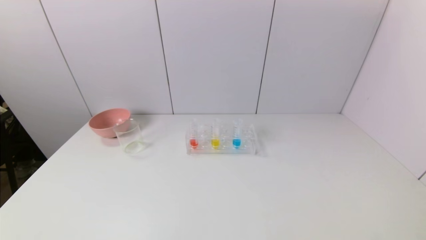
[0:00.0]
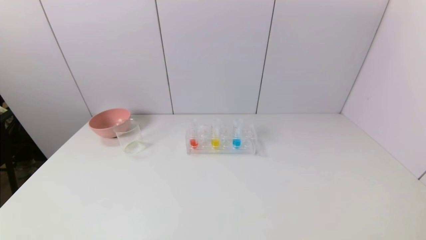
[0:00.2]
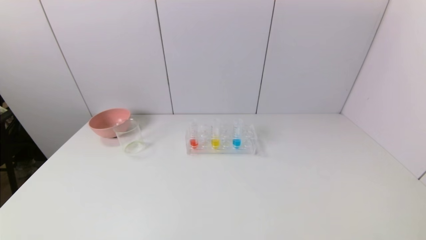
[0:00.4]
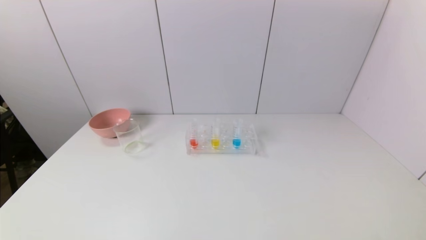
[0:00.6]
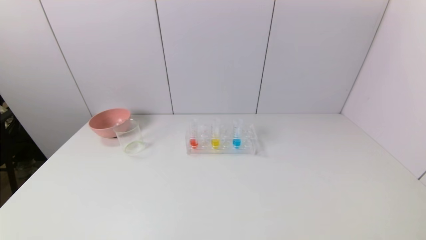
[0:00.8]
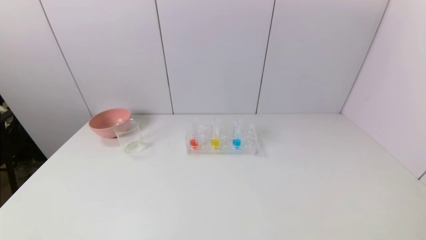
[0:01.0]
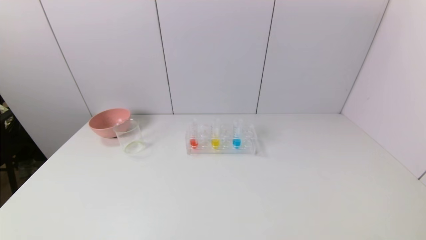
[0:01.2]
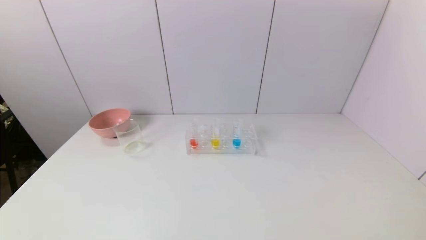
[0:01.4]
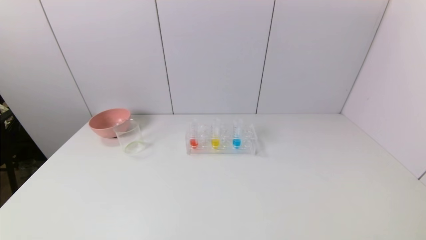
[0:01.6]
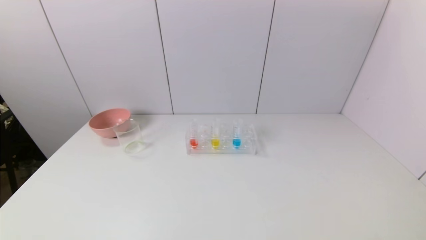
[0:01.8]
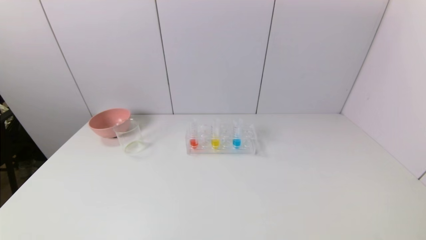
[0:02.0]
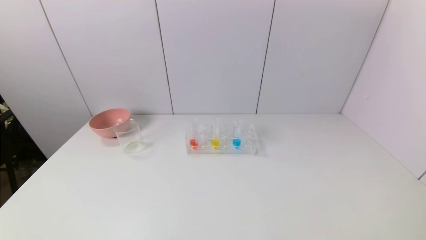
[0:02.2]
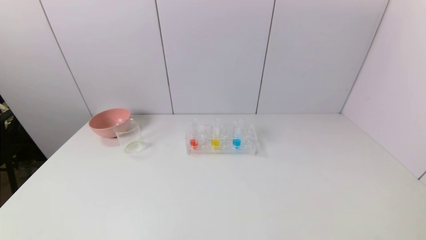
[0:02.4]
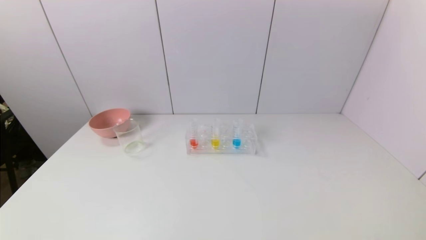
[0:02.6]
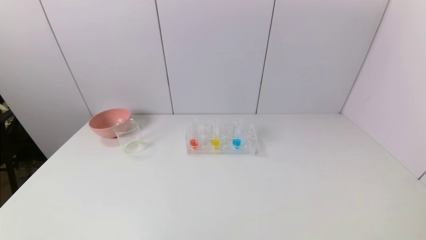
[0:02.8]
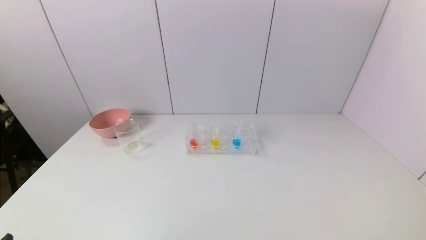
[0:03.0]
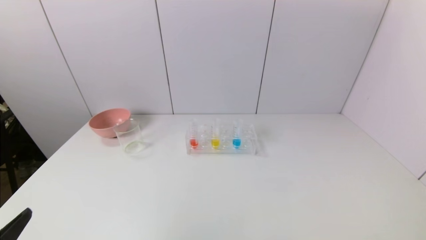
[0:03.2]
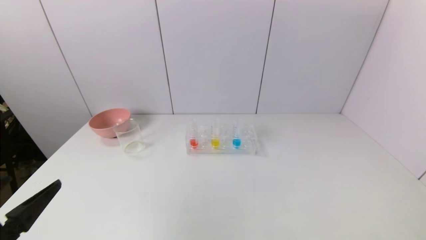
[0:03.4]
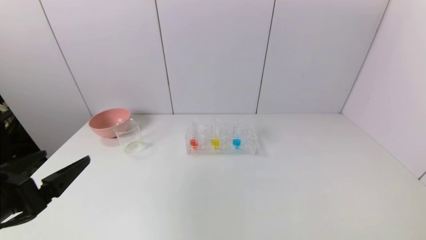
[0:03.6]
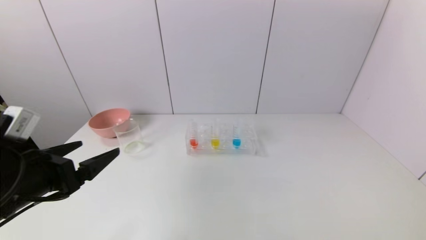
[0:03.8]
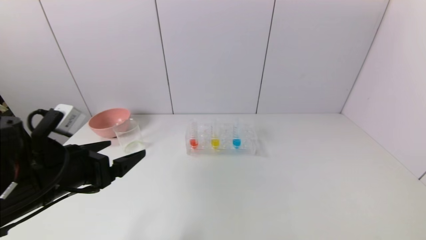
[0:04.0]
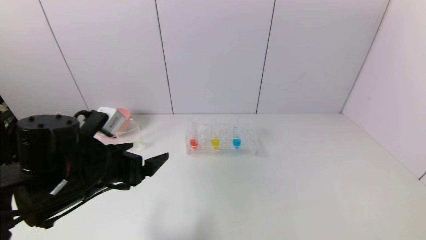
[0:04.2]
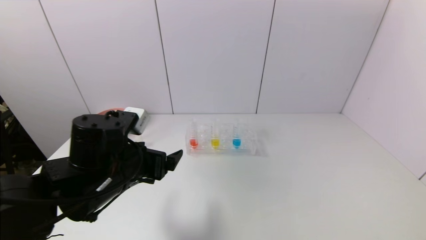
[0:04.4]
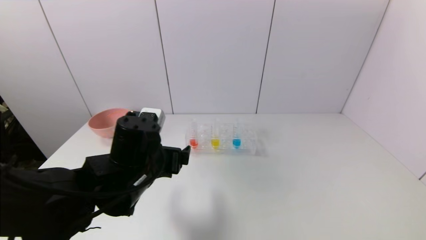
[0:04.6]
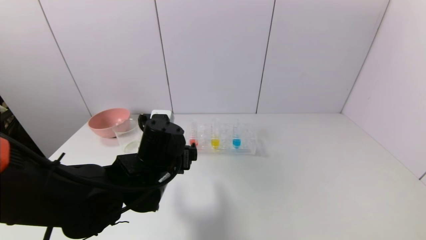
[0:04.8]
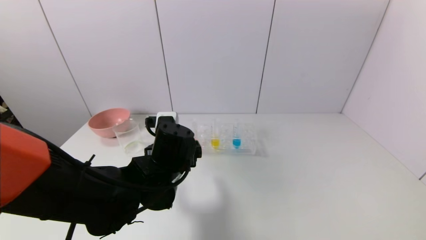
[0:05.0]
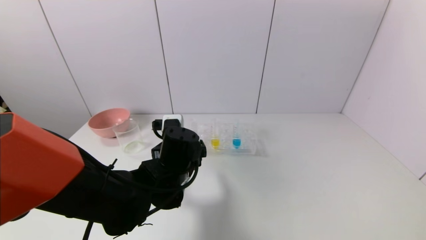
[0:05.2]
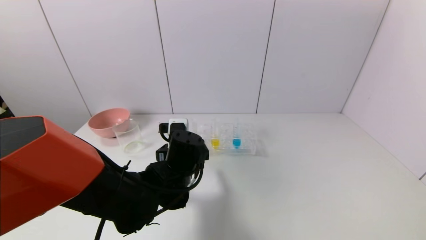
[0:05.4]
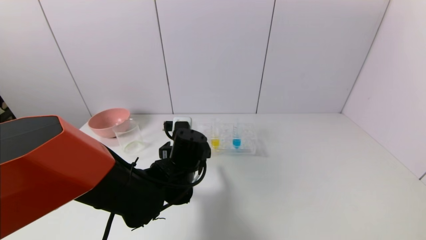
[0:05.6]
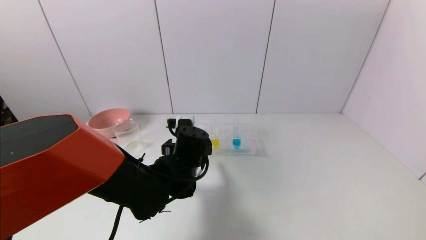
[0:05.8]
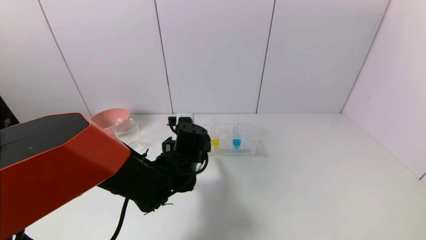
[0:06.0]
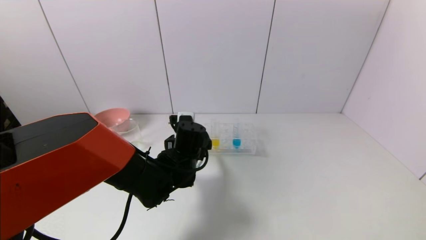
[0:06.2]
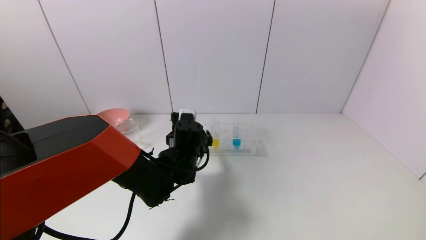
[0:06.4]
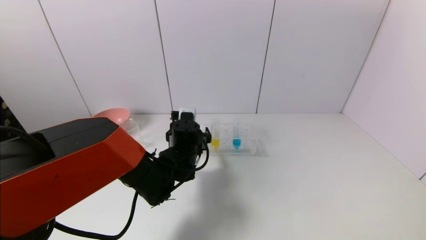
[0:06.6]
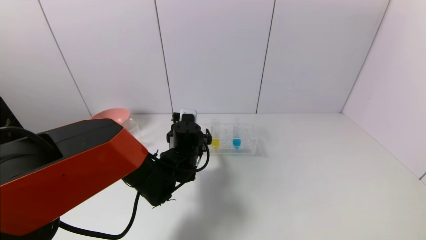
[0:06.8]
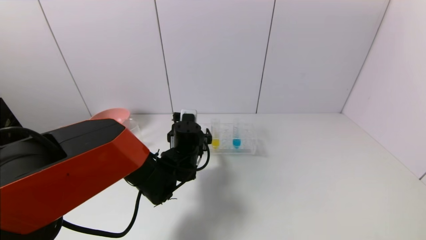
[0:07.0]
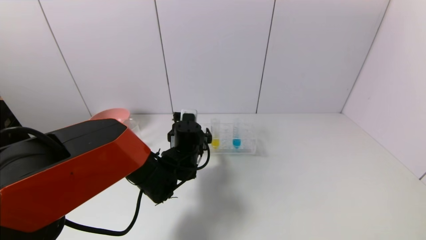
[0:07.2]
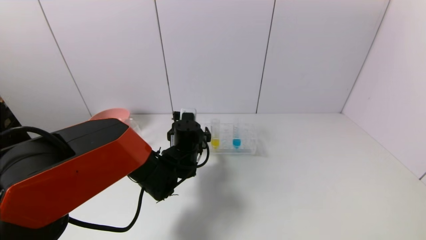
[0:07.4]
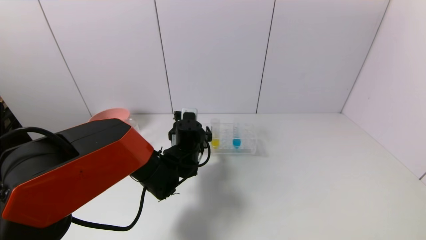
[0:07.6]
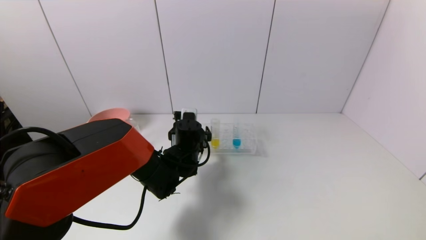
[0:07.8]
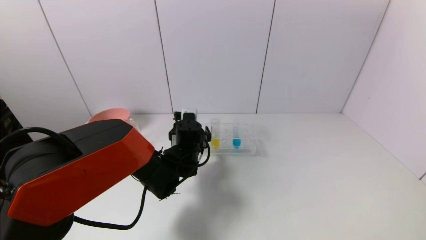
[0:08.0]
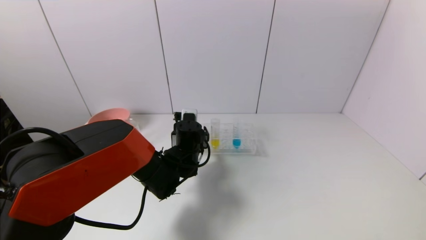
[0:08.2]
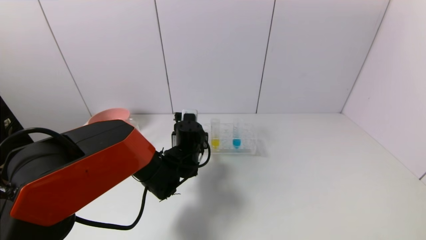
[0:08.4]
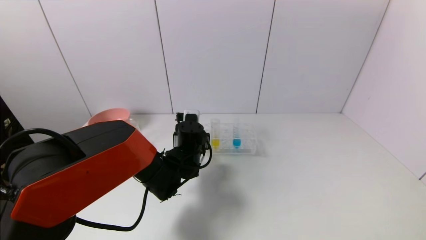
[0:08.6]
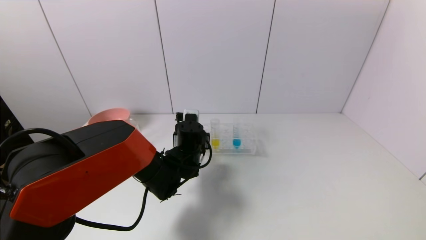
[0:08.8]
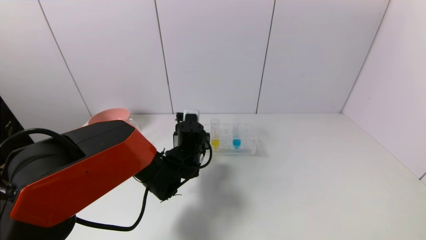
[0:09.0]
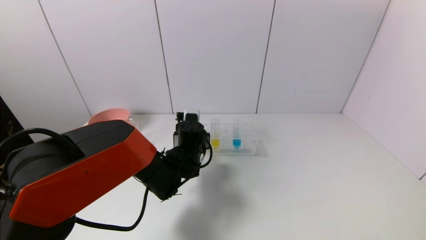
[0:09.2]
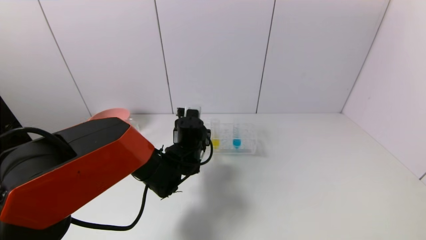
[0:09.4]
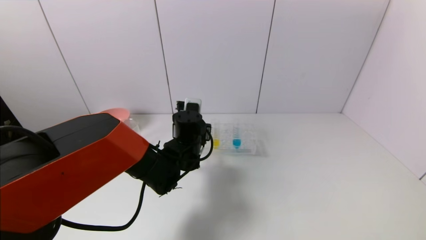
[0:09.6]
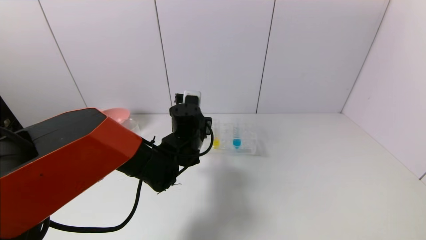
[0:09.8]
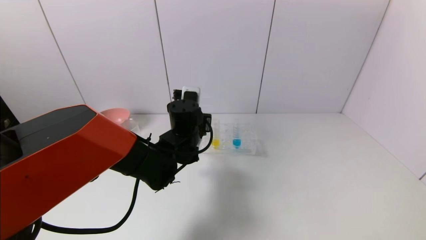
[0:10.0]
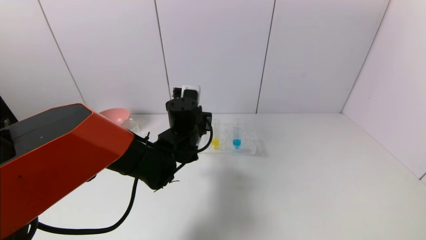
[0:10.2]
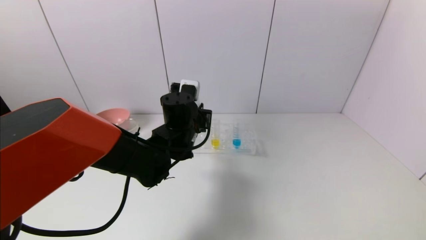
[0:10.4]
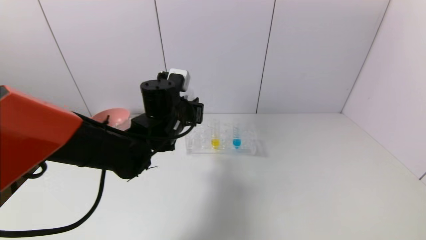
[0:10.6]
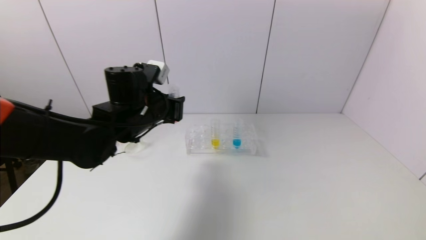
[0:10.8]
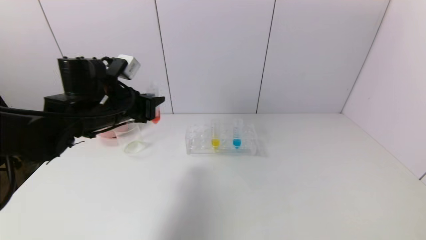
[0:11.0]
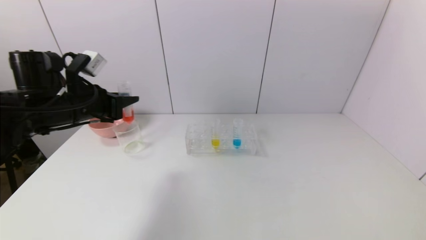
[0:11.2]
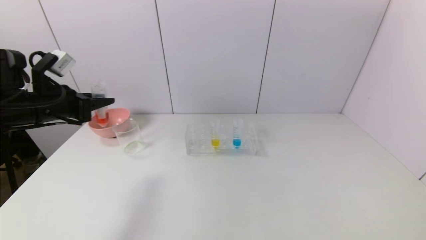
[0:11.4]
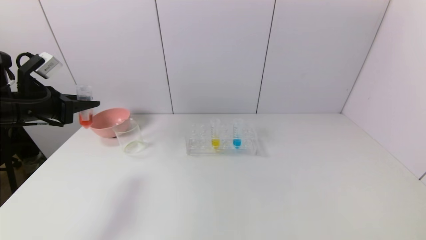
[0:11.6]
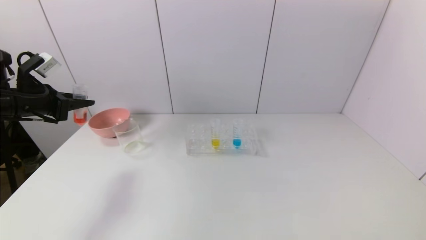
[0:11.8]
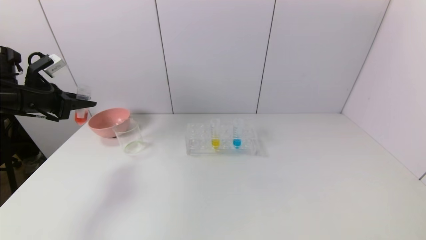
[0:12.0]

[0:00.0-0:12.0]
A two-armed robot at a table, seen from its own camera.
Task of the whole recording: pick up the test tube with yellow pigment and the test tube with red pigment by grippers and pour them into the beaker.
Step, 0:00.0 to 0:08.8: Grasp the red reagent with the left gripper.
0:03.0 to 0:04.4: The left gripper heads forward and to the right, covering roughly 25 cm.
0:04.4 to 0:06.0: The left gripper goes some 15 cm to the right, forward and downward.
0:06.0 to 0:07.6: The left gripper goes roughly 5 cm forward.
0:07.6 to 0:09.0: The left gripper closes.
0:09.0 to 0:10.4: The left gripper moves upward, approximately 10 cm.
0:10.4 to 0:12.0: The left gripper heads to the left, covering approximately 35 cm.

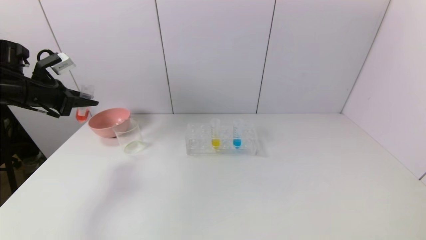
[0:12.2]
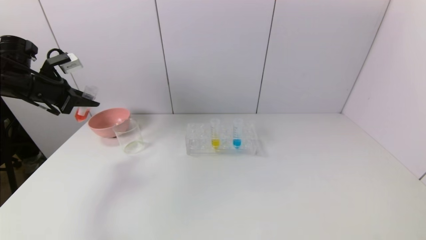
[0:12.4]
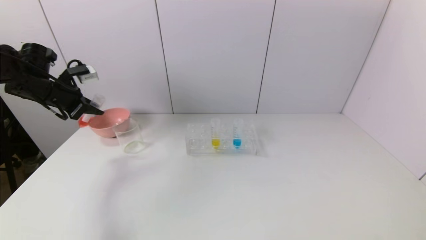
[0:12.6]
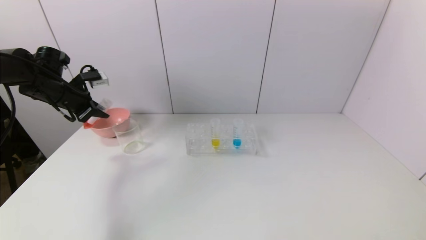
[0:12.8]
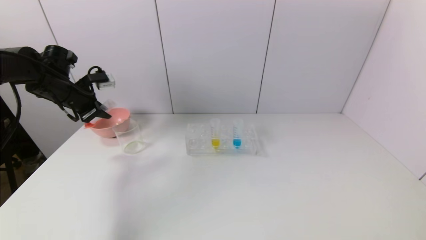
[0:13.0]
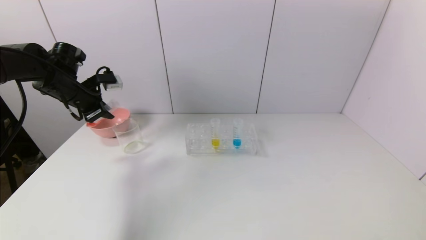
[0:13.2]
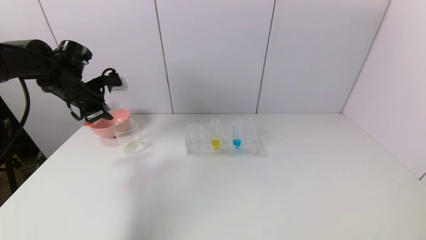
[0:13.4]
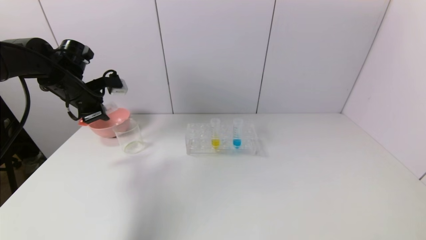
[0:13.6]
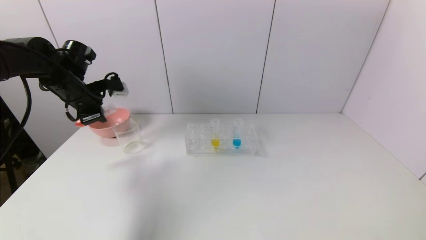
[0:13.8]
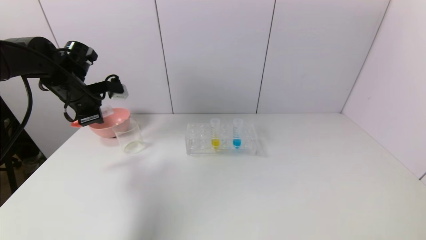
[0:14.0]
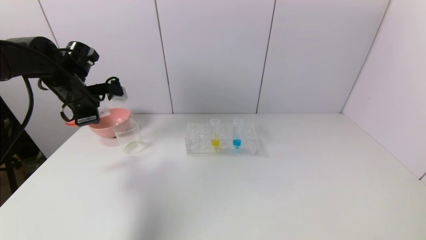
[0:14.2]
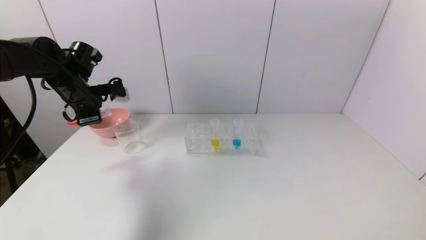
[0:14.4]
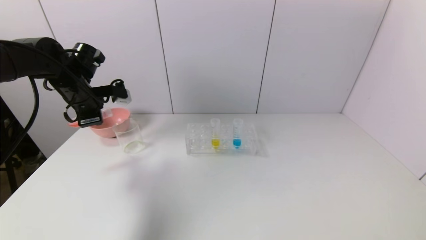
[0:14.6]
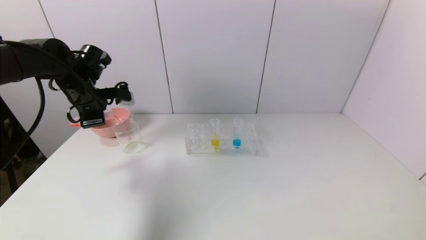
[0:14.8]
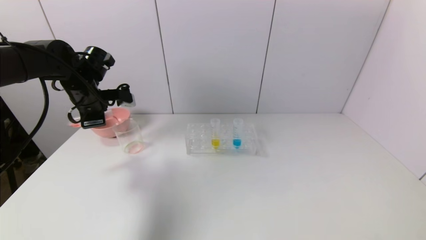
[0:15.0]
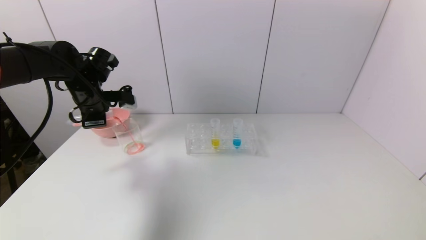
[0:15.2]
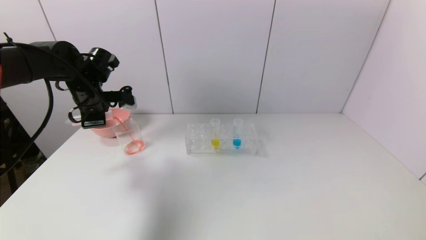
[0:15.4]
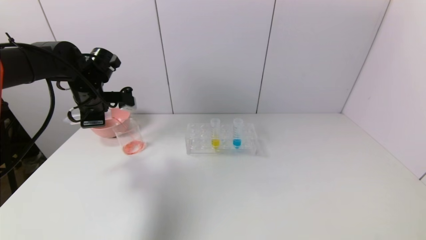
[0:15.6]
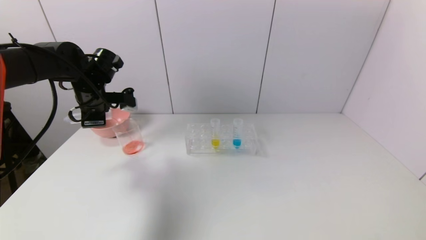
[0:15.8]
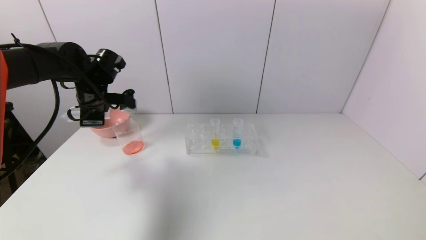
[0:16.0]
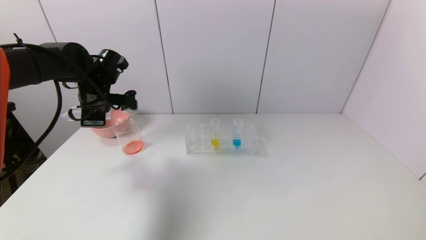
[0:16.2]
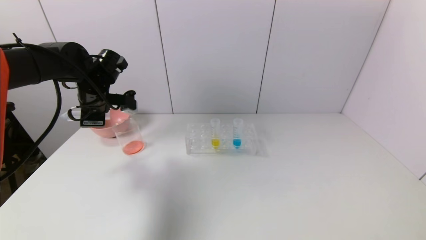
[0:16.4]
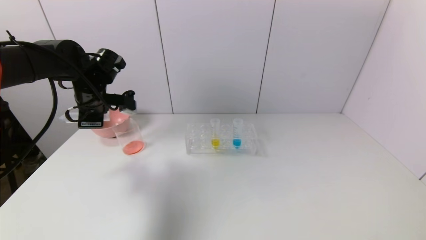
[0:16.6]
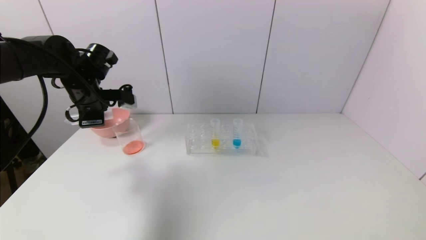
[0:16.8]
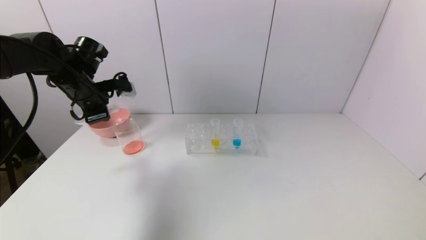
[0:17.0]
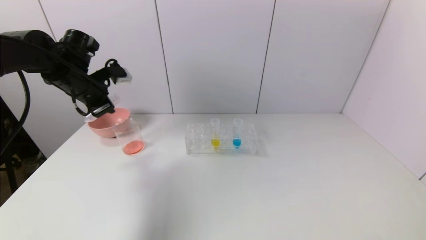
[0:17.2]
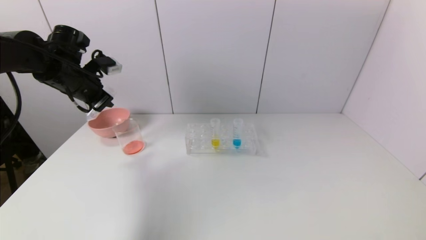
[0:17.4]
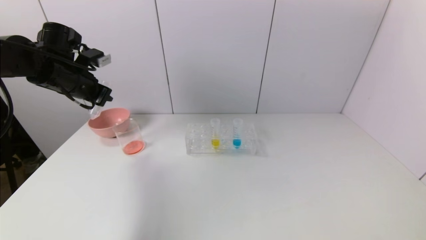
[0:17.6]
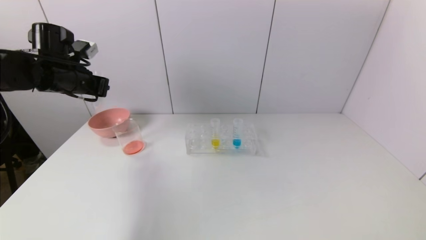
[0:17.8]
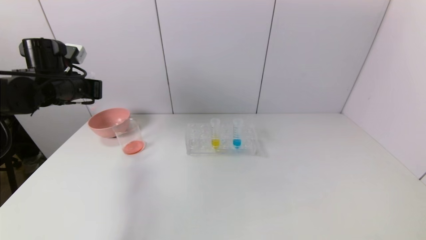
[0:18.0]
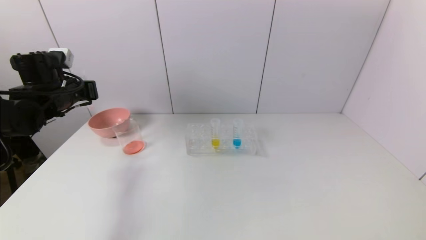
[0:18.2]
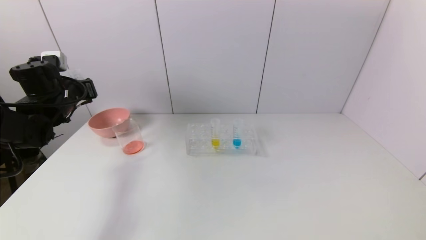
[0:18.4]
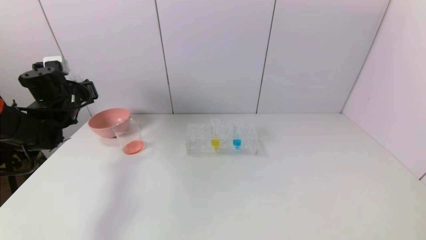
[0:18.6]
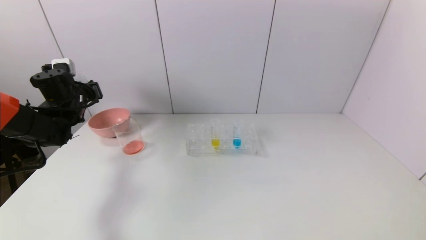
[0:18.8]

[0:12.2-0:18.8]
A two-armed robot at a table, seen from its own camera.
Task of the whole recording: pick up the test tube with yellow pigment and the test tube with red pigment by grippers and pour them into the beaker.
Step, 0:12.2 to 0:16.2: Pour the red reagent into the graduated cylinder with the left gripper.
0:12.2 to 0:13.8: The left gripper is displaced to the right by approximately 10 cm.
0:17.2 to 0:18.8: The left gripper goes roughly 10 cm downward and to the left.
